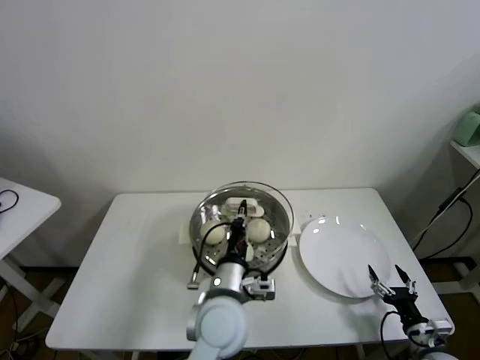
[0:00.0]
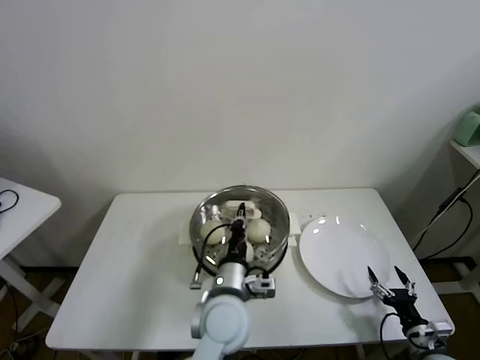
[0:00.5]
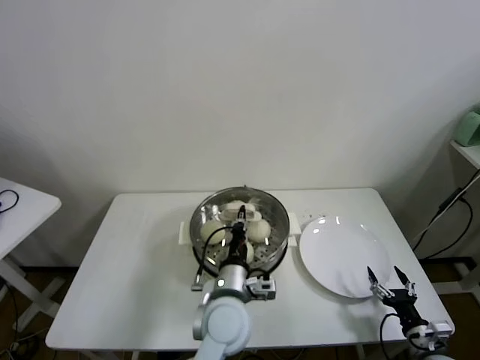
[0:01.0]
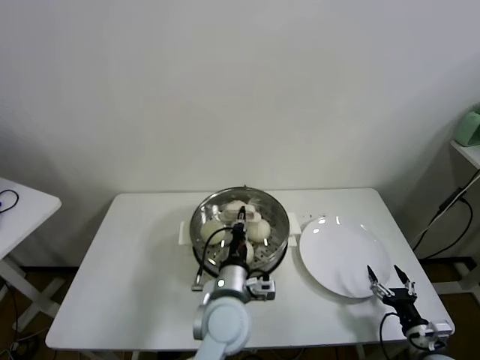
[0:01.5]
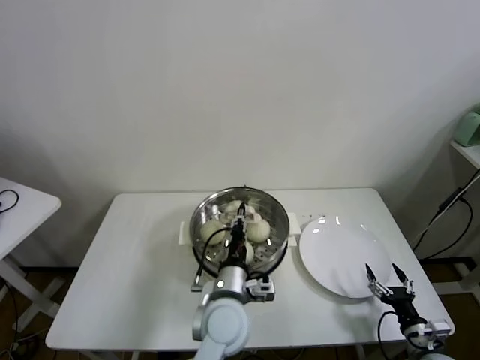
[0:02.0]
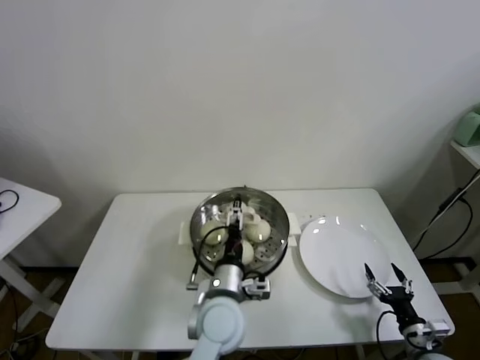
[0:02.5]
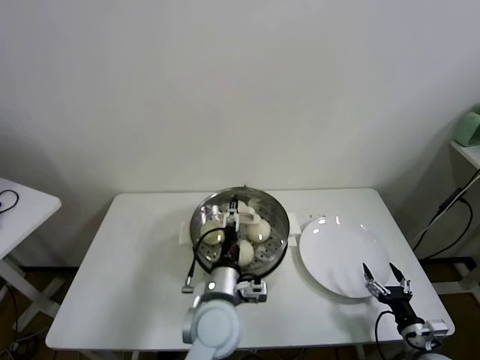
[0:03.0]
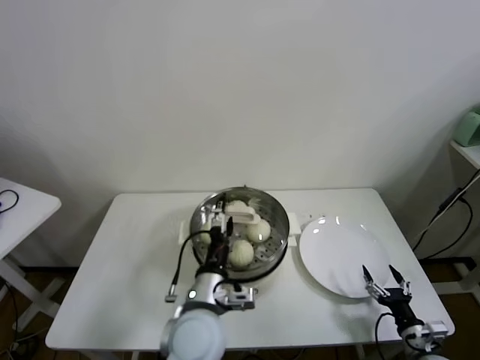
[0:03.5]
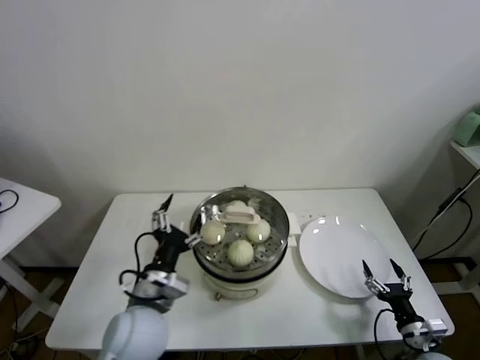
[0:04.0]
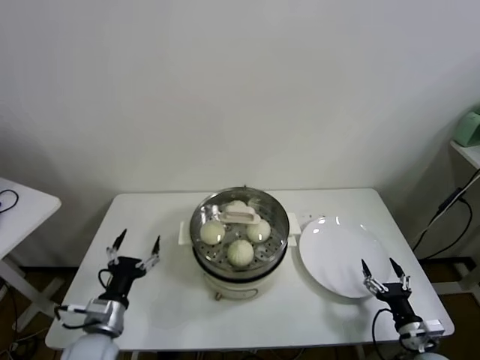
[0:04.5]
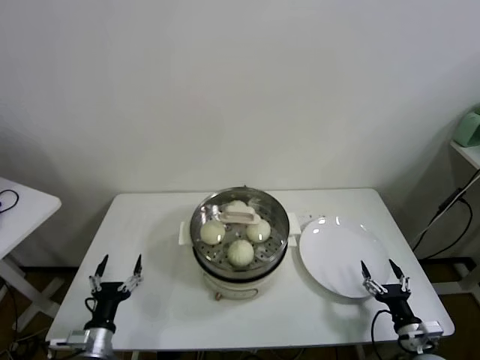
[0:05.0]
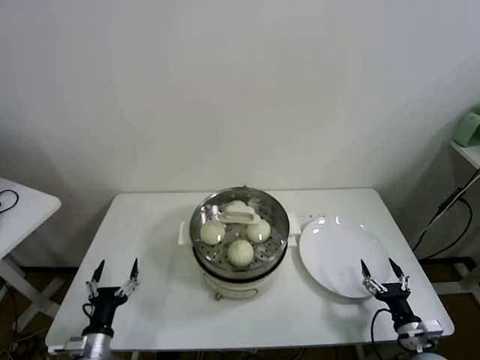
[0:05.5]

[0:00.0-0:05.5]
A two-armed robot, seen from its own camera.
Task of the whole recording: take steamed baozi put them in steamer.
Step, 0:00.0 to 0:02.0: Place the pot lid on the steamer with left gripper.
0:00.0 to 0:02.0: There are only small adjustments of the grippers.
0:02.0 to 0:03.5: The left gripper moves roughly 5 cm, and opens its fingers.
0:03.5 to 0:05.5: The left gripper moves to the left and downward, some 30 cm.
